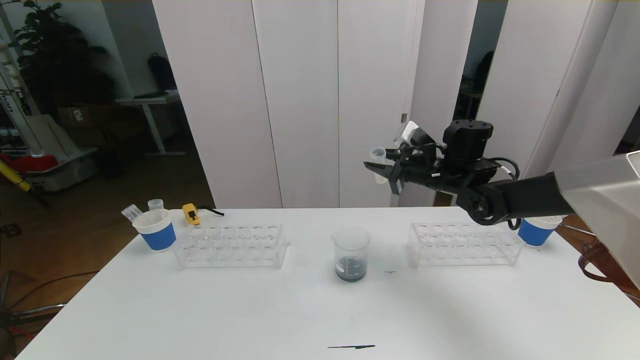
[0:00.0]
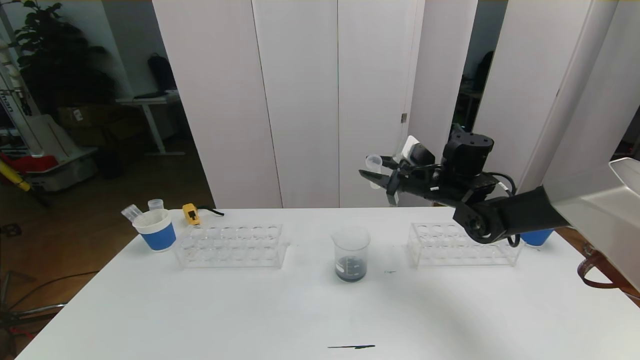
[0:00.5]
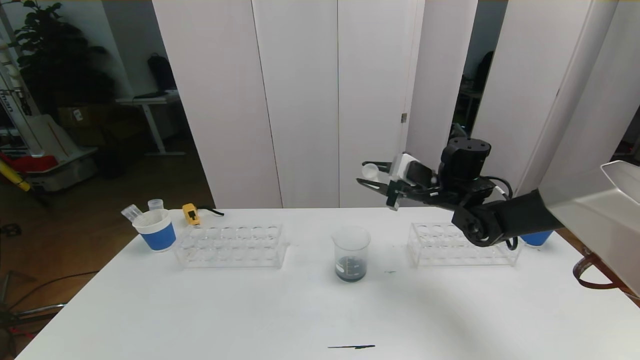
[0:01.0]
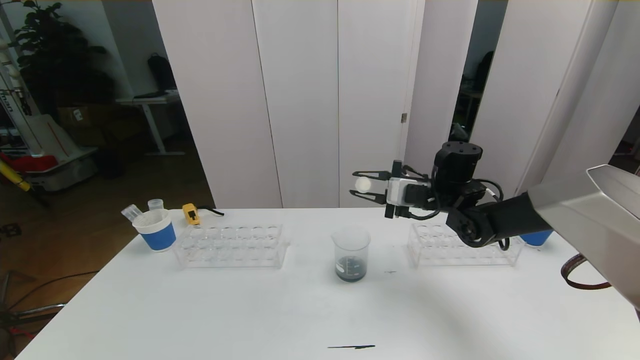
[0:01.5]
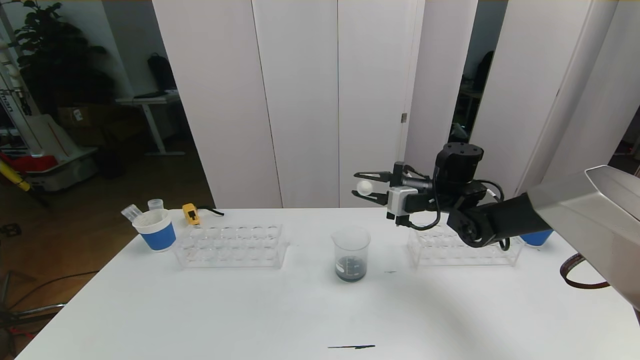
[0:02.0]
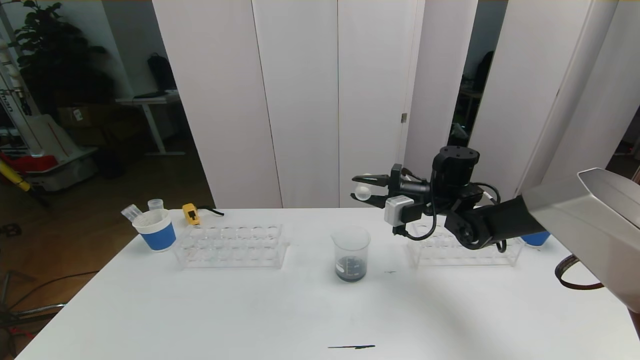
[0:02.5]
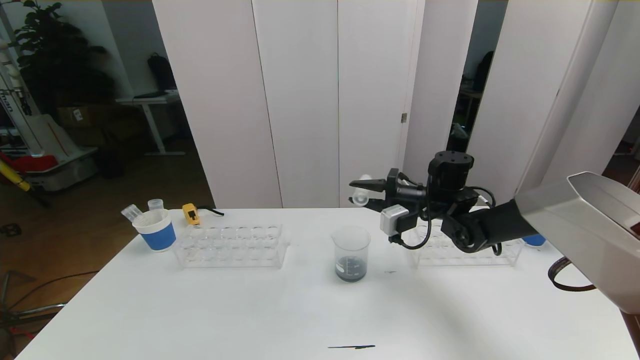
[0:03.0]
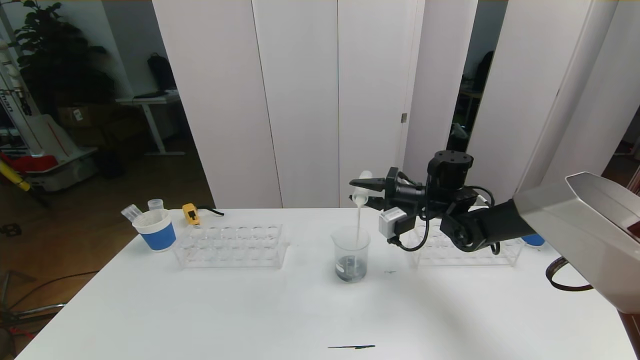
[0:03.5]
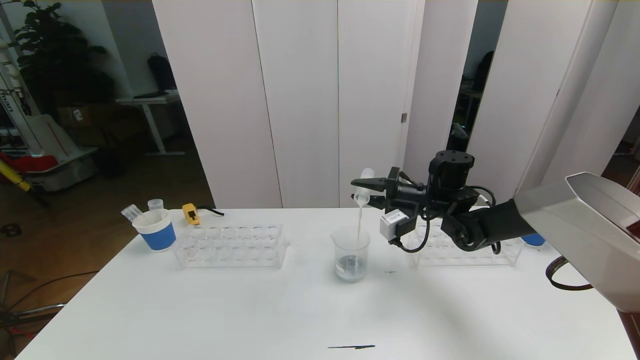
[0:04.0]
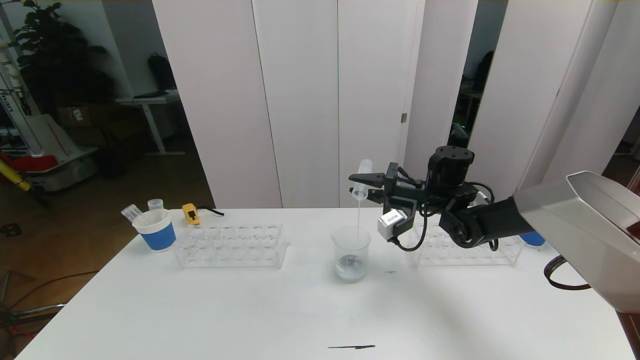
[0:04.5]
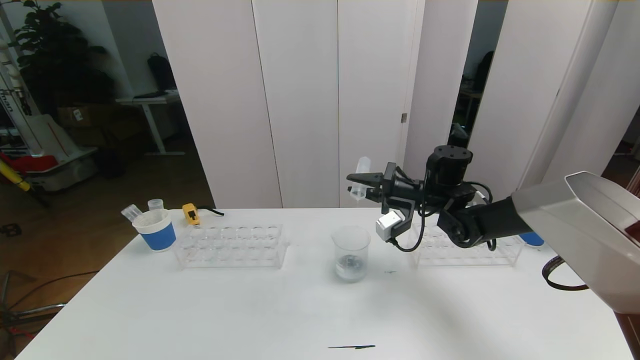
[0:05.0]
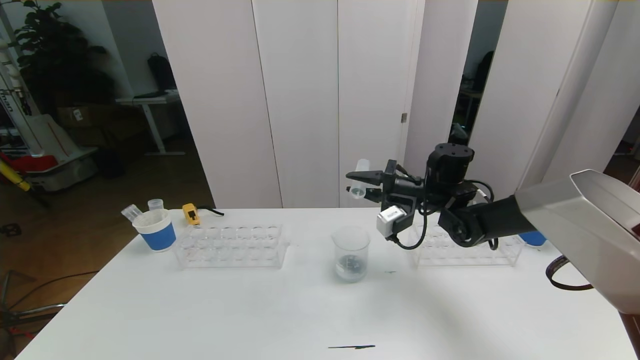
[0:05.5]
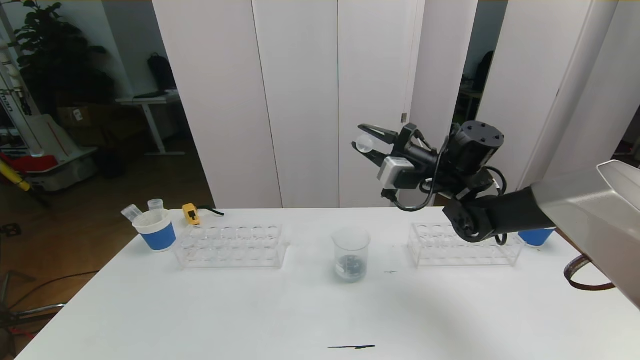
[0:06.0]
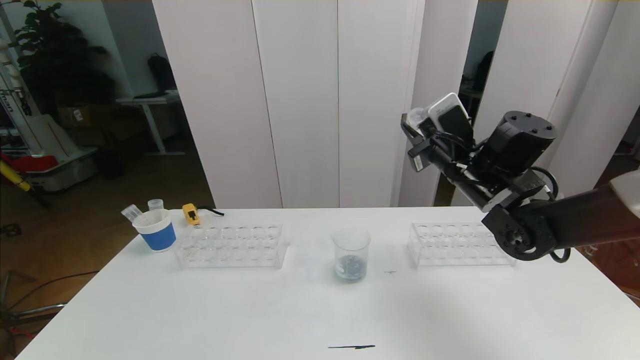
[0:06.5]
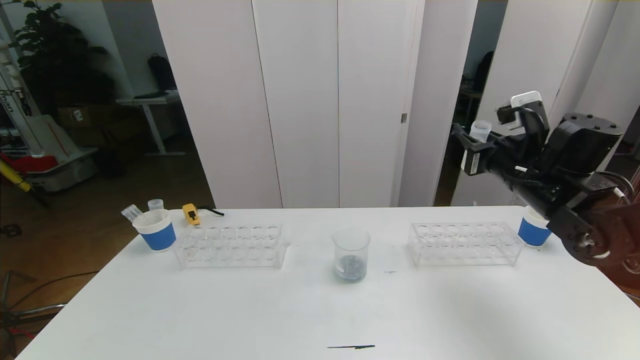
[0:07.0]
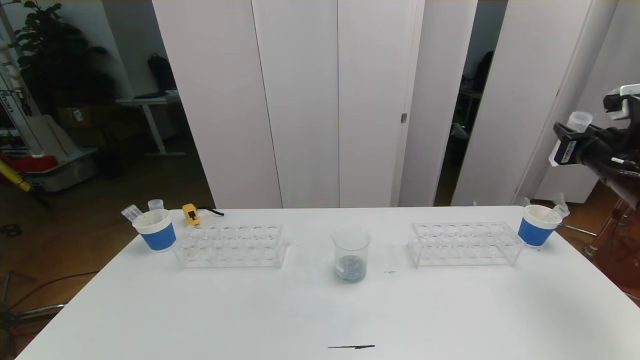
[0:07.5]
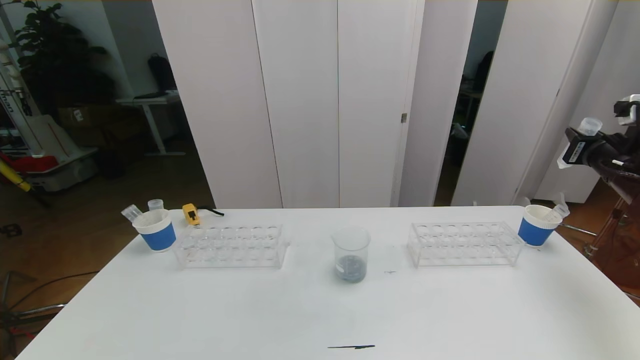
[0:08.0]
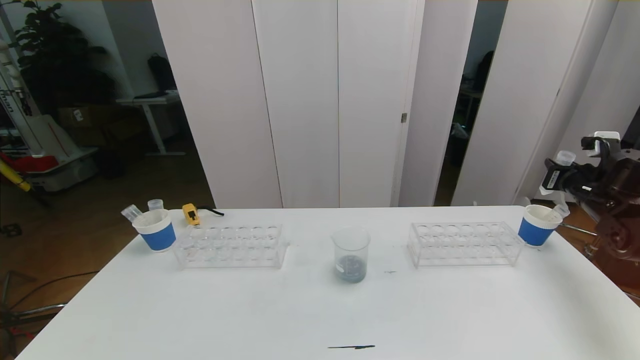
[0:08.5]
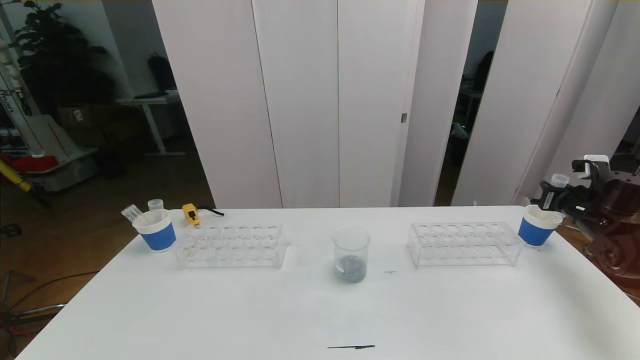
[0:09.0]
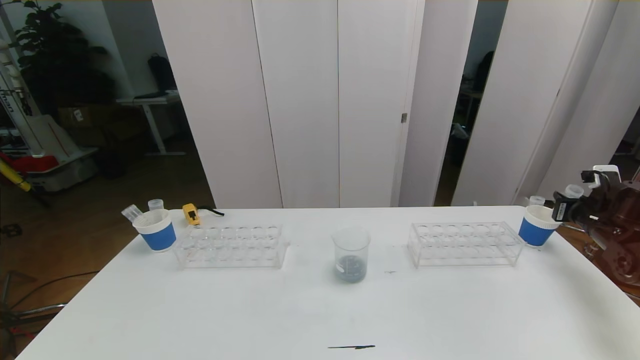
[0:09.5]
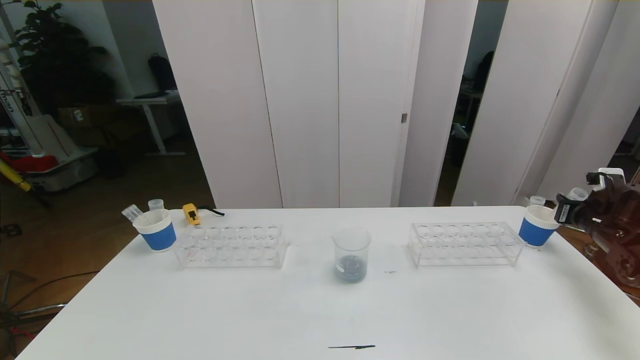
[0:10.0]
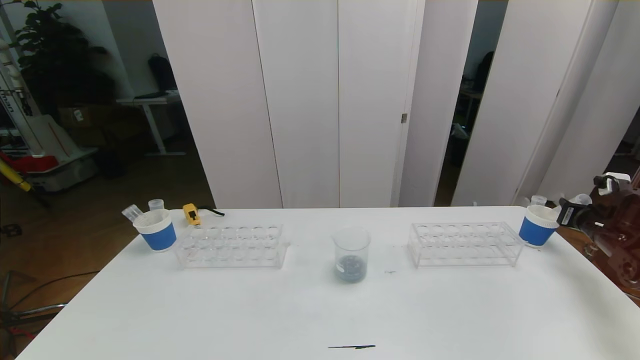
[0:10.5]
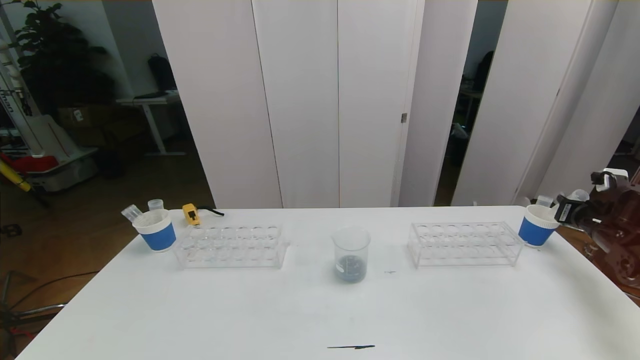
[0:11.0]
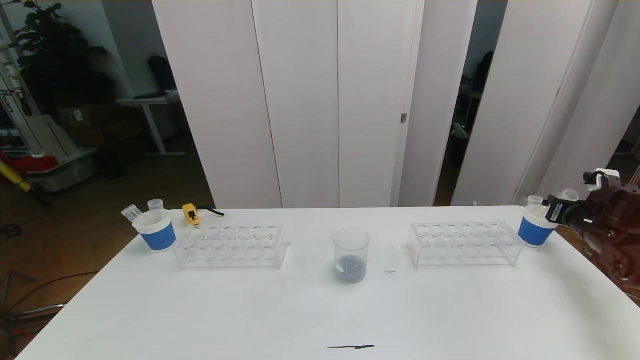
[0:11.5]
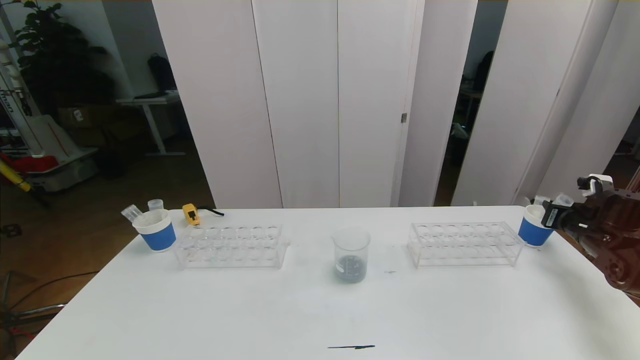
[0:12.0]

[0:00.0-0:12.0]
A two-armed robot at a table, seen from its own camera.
Task of the whole recording: pick up the test tube with red pigment the test tube with blue pigment and the test tube with white pigment by grippers and pour them into the beaker.
0:04.0 to 0:06.0: The right gripper is displaced upward by roughly 5 cm.
0:06.0 to 0:08.0: The right gripper travels to the right by about 30 cm.
0:08.0 to 0:10.0: The right gripper heads downward and to the right, covering some 15 cm.
0:10.0 to 0:12.0: The grippers make only small movements.

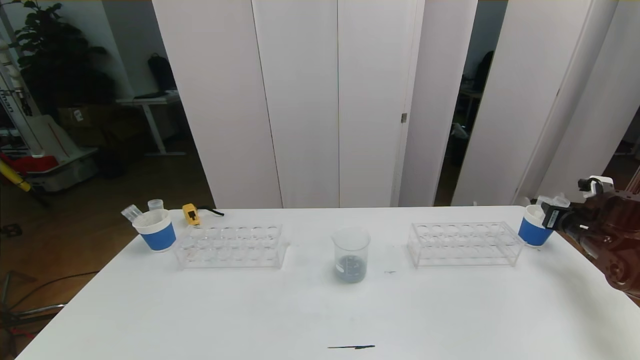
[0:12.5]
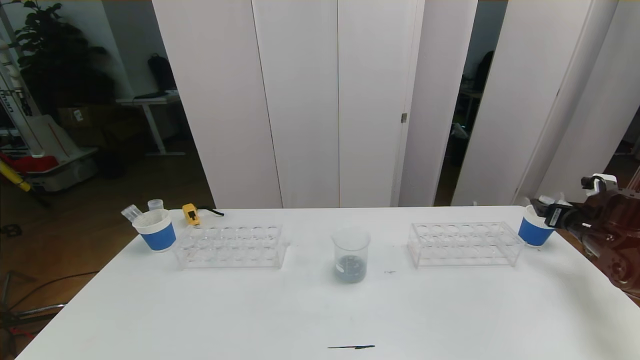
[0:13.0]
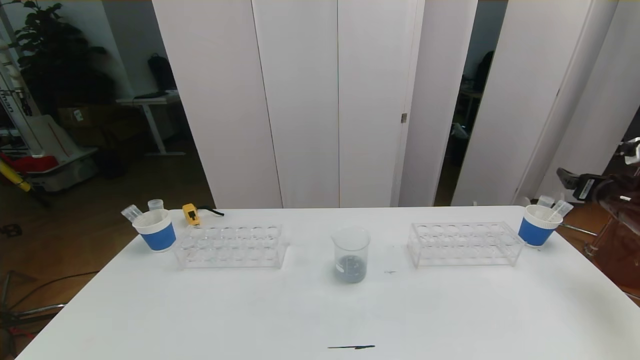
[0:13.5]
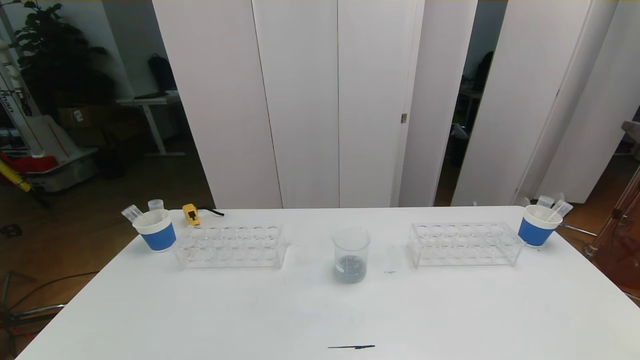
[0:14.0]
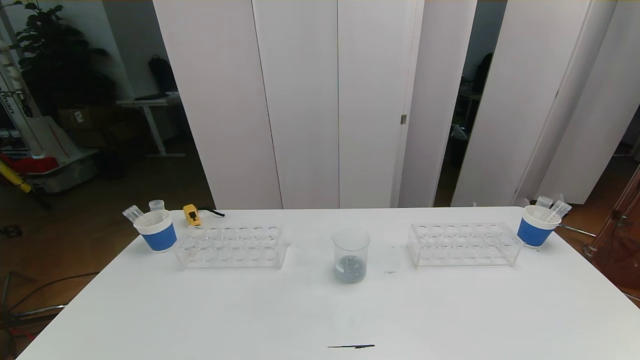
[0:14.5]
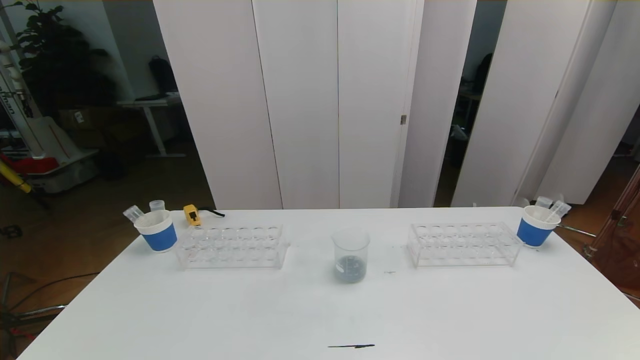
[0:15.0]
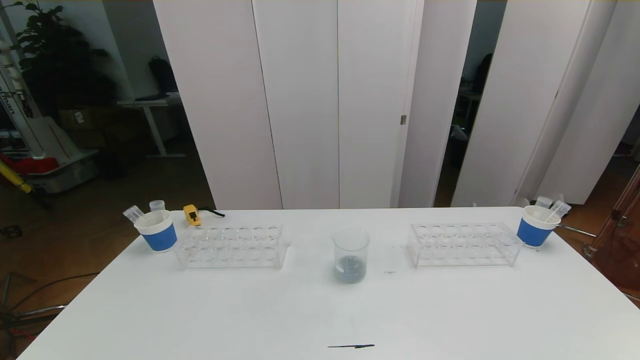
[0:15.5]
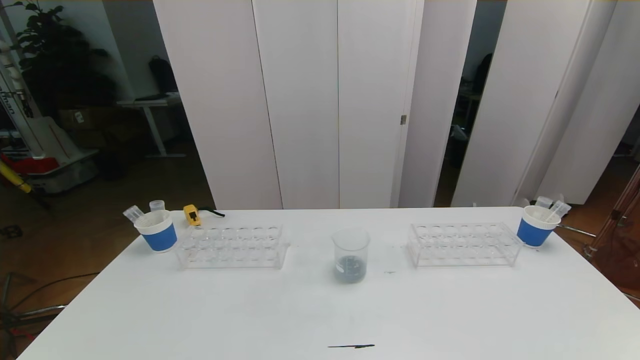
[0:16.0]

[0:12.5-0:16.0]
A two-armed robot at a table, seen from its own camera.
Task of the whole recording: pick up the test tube with red pigment the test tube with blue pigment and the test tube with white pigment by grippers and pour them into the beaker.
Step, 0:12.5 to 0:16.0: Pour the white reagent into the graduated cylinder and place the test tube into the paper cup.
0:12.5 to 0:14.5: The right gripper goes about 40 cm backward and upward, and opens up.
